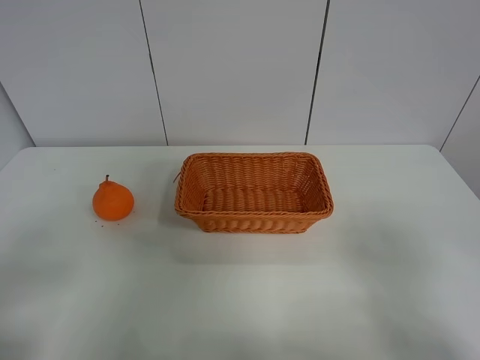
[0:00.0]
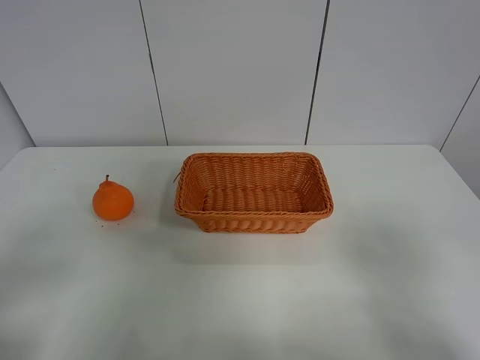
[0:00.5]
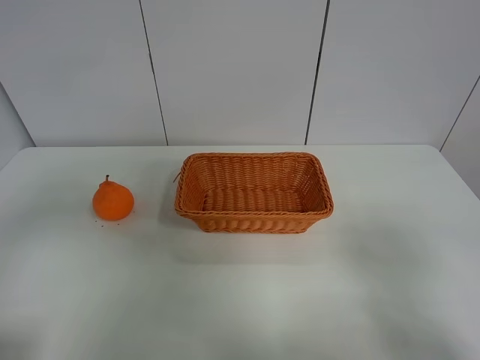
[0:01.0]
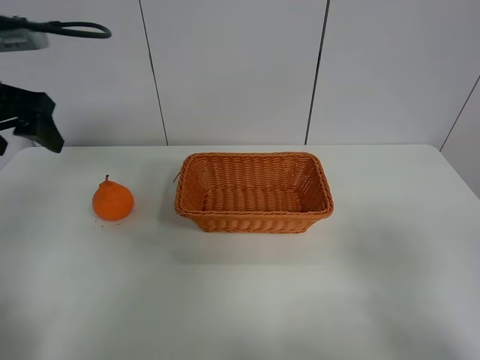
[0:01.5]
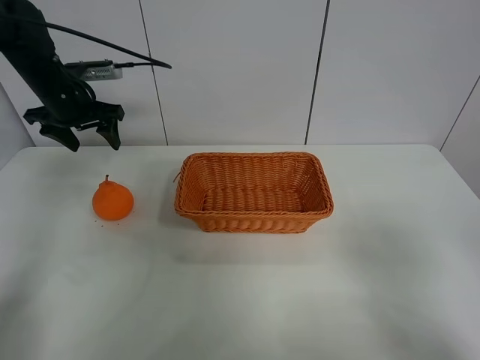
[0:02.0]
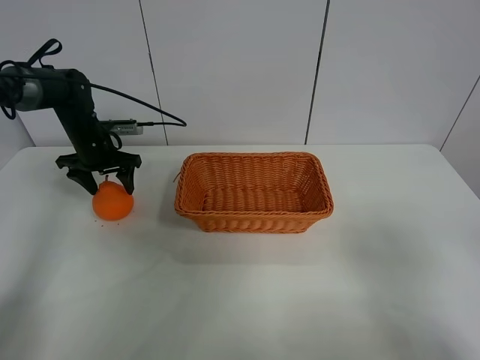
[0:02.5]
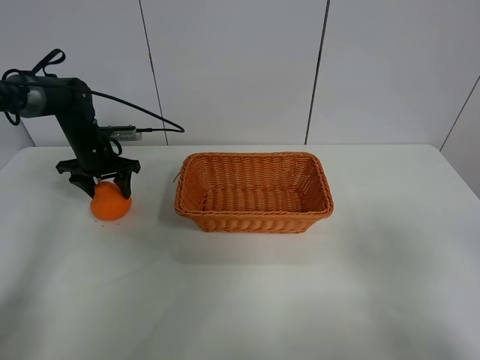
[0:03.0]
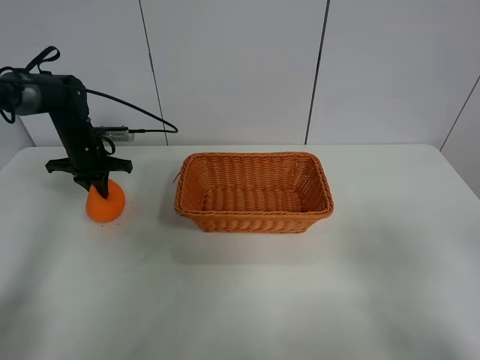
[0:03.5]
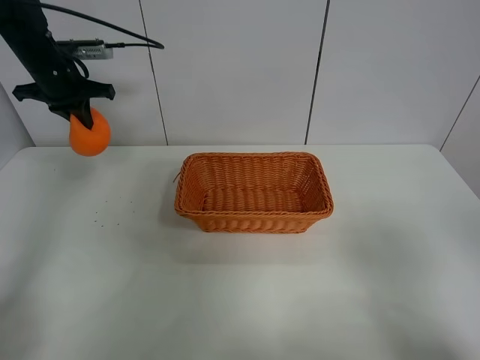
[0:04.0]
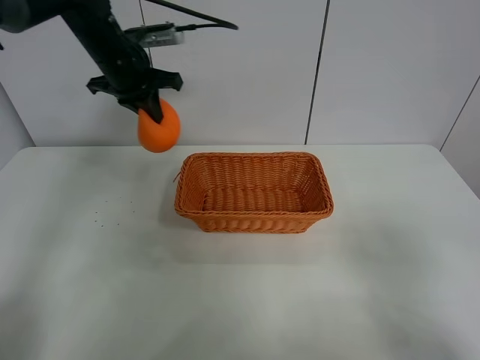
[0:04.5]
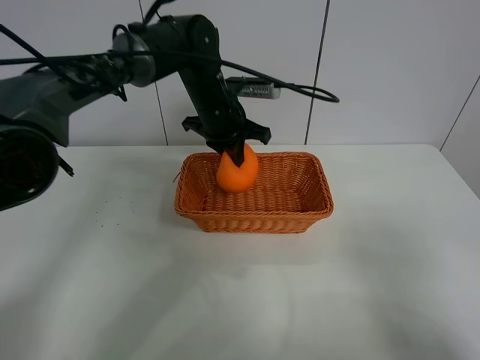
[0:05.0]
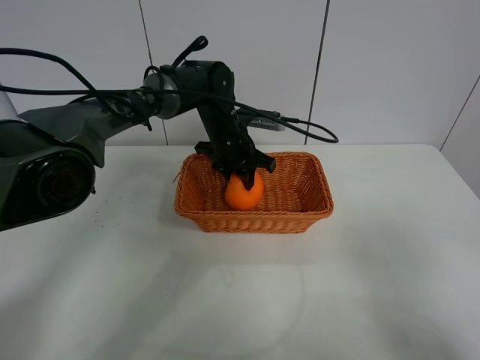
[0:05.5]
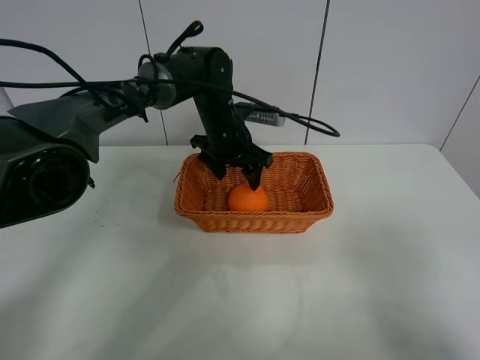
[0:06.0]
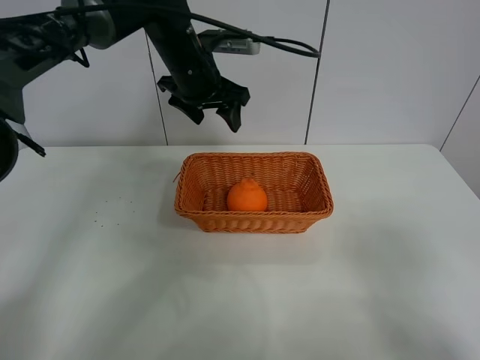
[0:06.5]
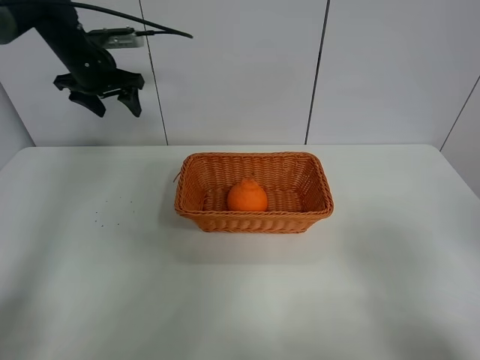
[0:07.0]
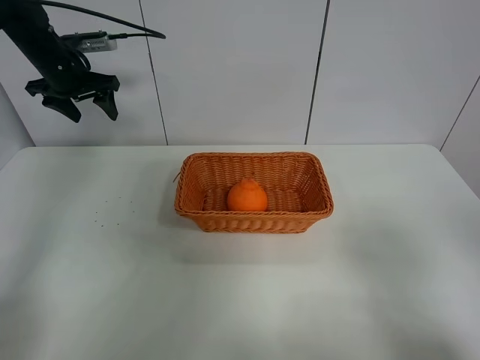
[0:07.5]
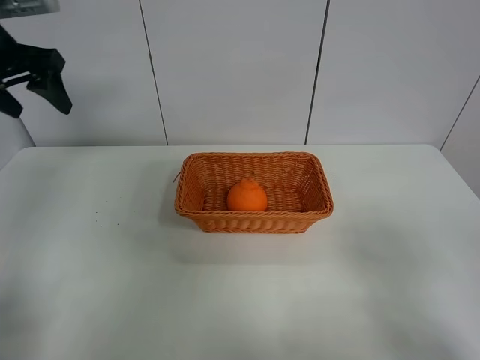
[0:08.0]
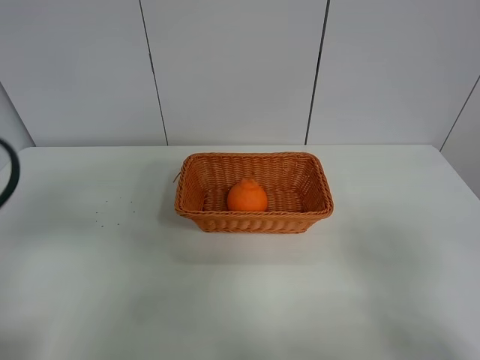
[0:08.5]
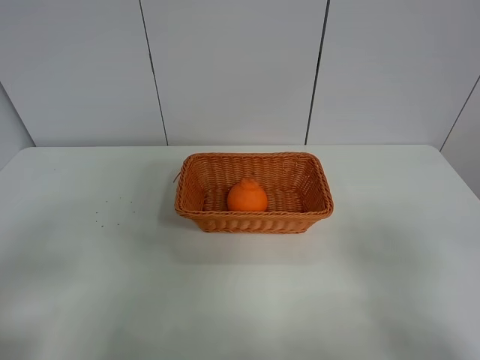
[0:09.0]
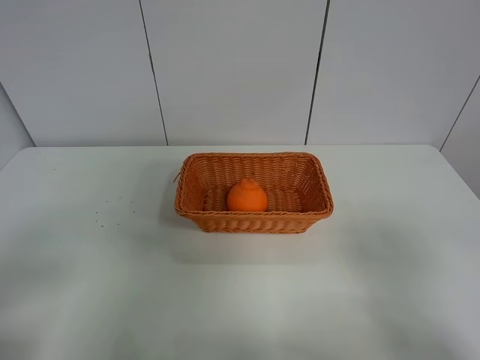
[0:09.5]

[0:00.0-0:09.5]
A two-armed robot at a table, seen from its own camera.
Task of the whole recording: left gripper grabs oranges and puts them in the basket.
Step, 0:00.0 to 0:03.0: Grasp the orange with left gripper.
Step, 0:03.5 to 0:06.5: Place the orange in the basket with left gripper.
0:00.0 to 0:02.0: The left gripper moves forward, some 40 cm.
0:02.0 to 0:04.0: The left gripper reaches some 10 cm downward, then returns, and closes its fingers.
0:04.0 to 0:05.5: The left gripper travels to the right and downward by roughly 30 cm, and opens up.
0:05.5 to 0:07.5: The left gripper heads to the left and upward, covering about 30 cm, and opens its fingers.
0:07.5 to 0:09.5: The left gripper shifts approximately 50 cm backward.
